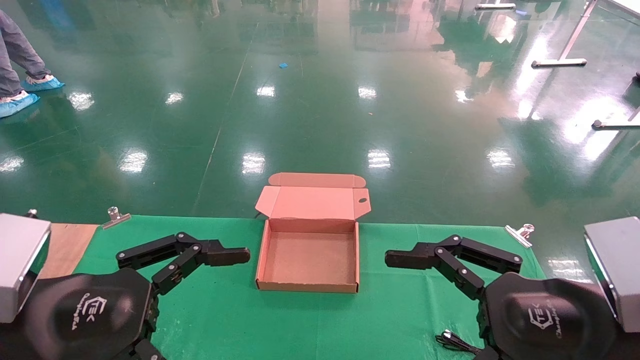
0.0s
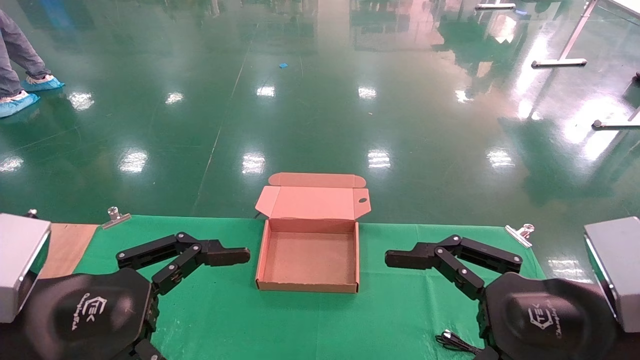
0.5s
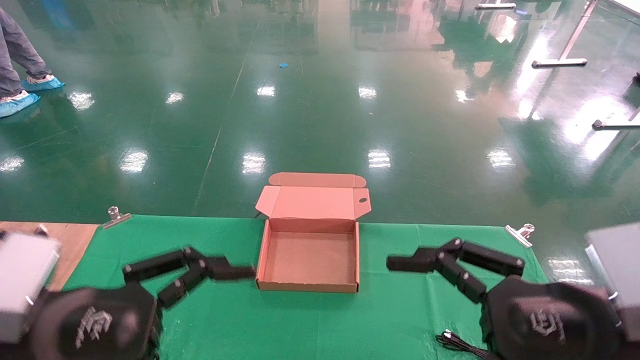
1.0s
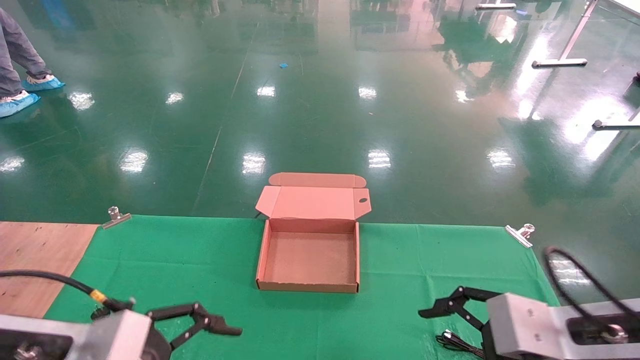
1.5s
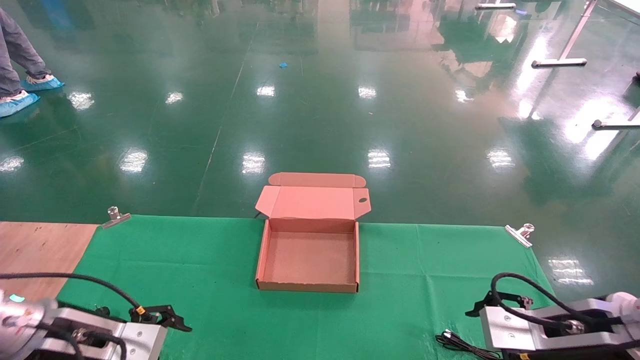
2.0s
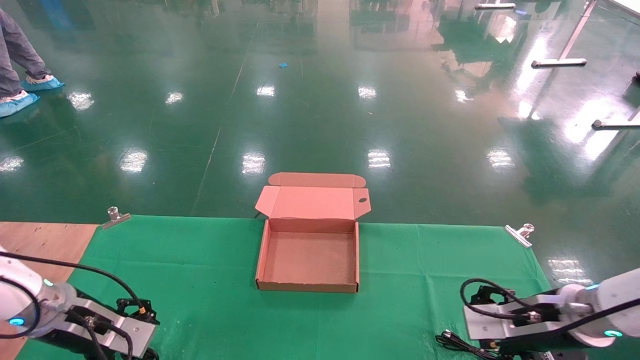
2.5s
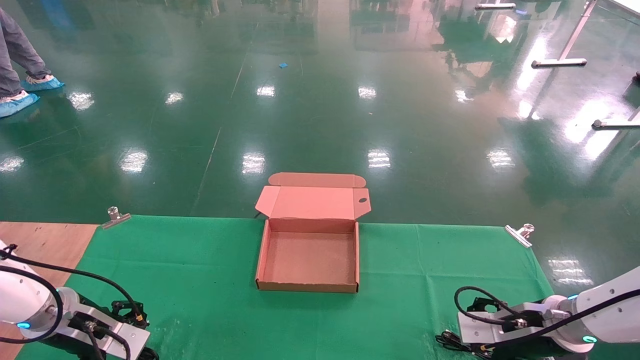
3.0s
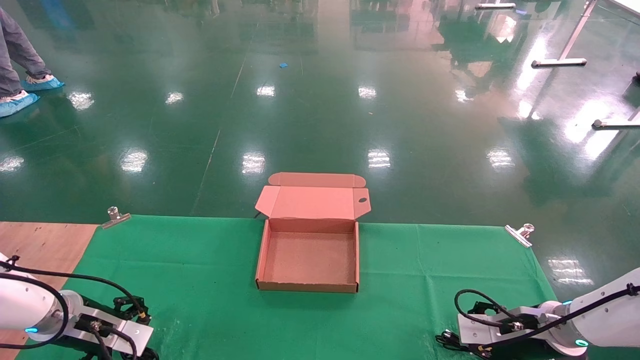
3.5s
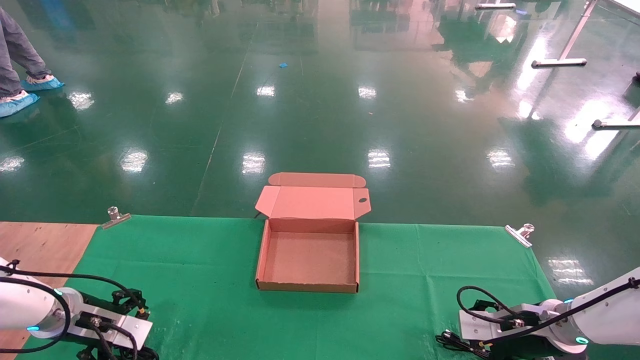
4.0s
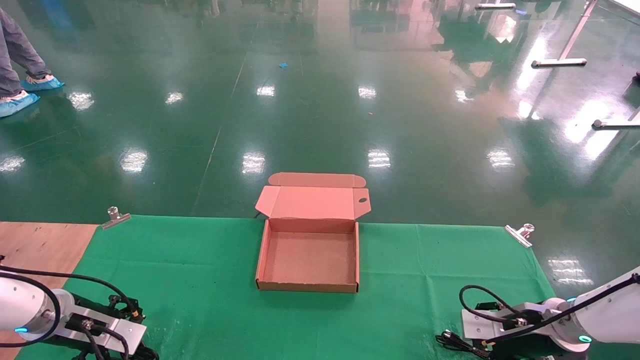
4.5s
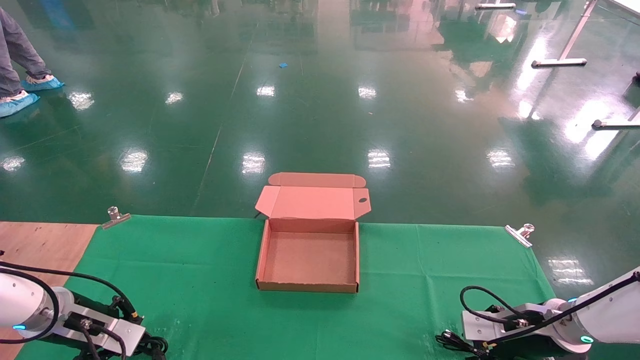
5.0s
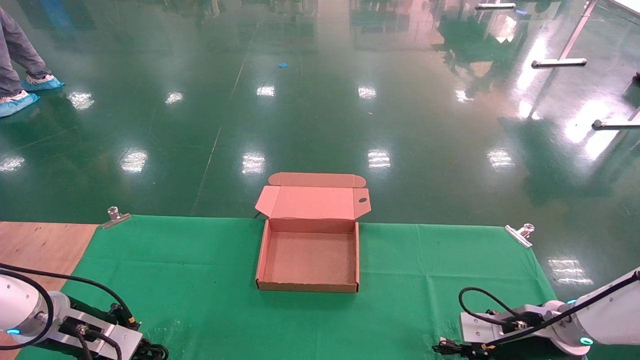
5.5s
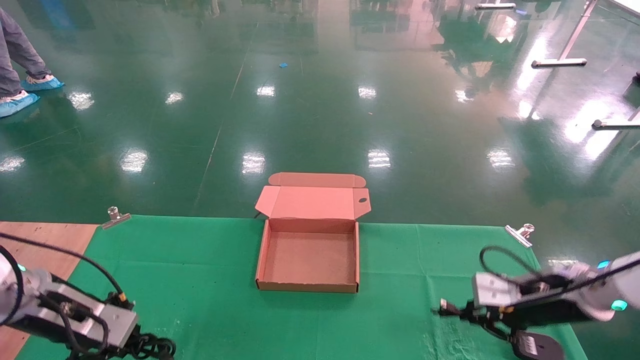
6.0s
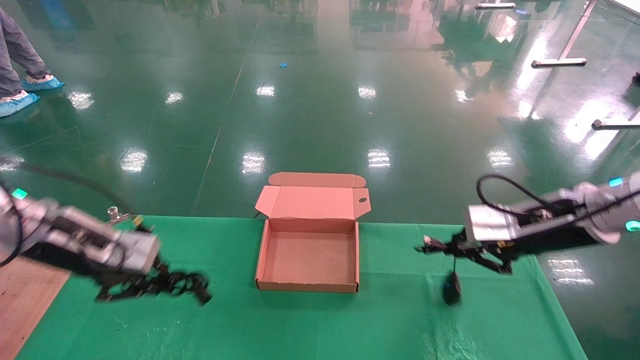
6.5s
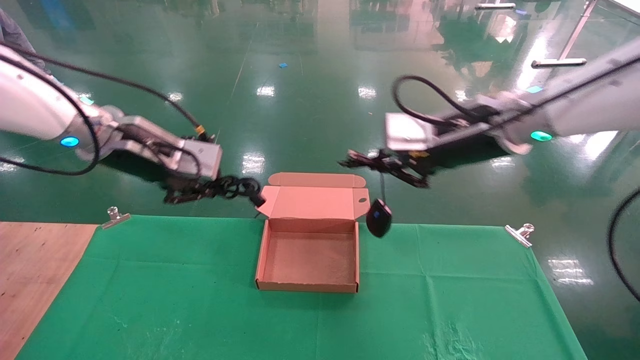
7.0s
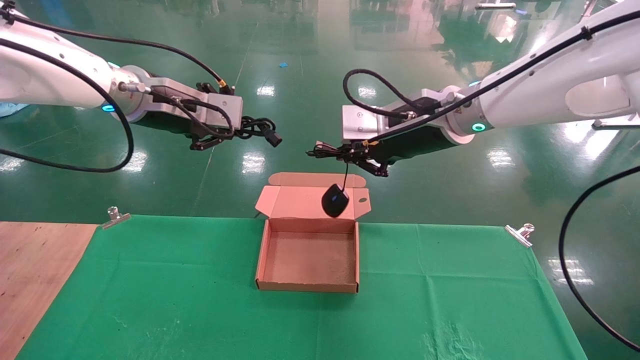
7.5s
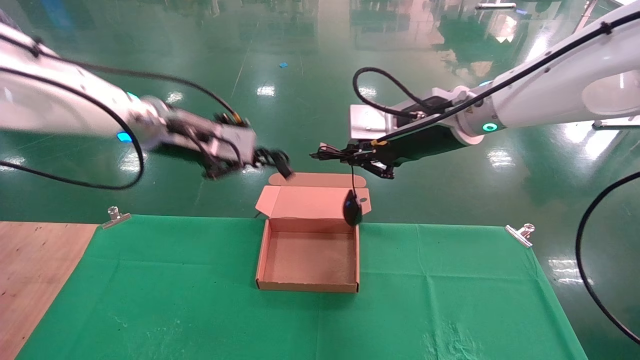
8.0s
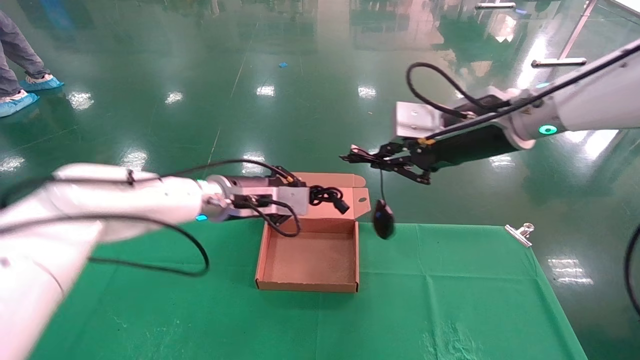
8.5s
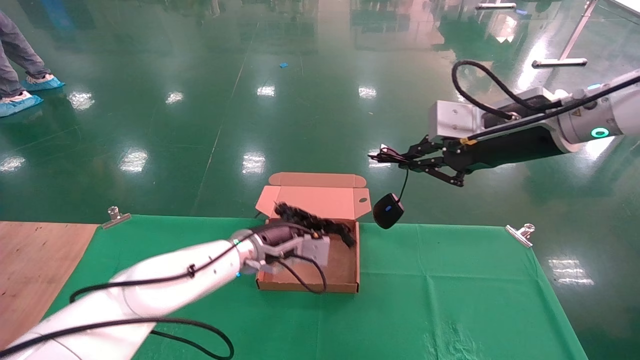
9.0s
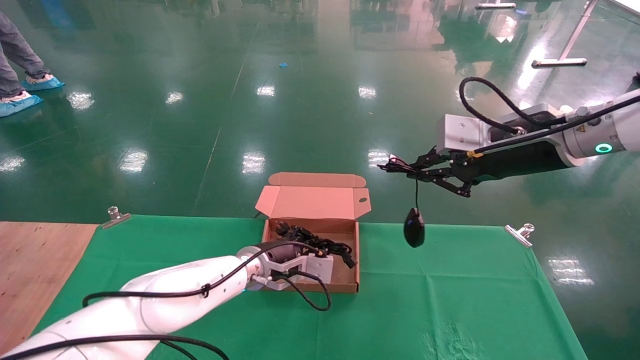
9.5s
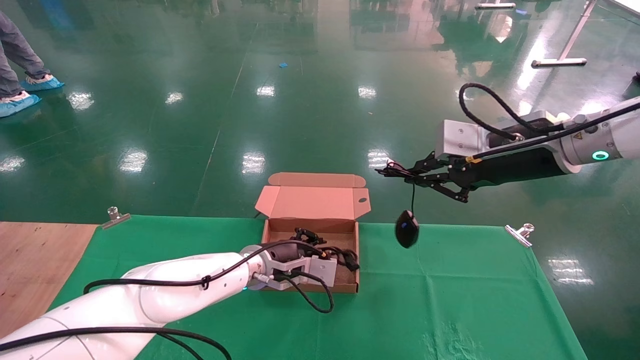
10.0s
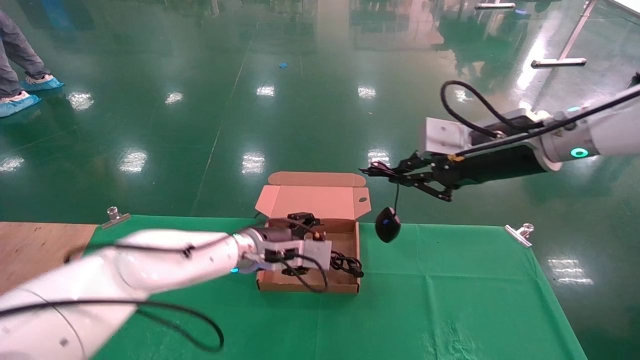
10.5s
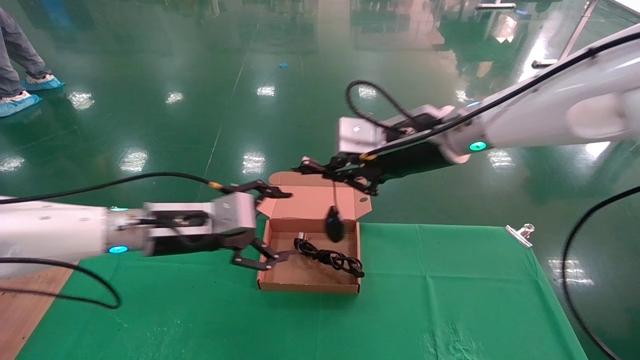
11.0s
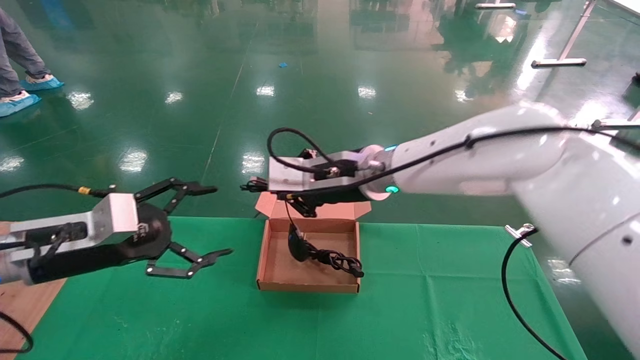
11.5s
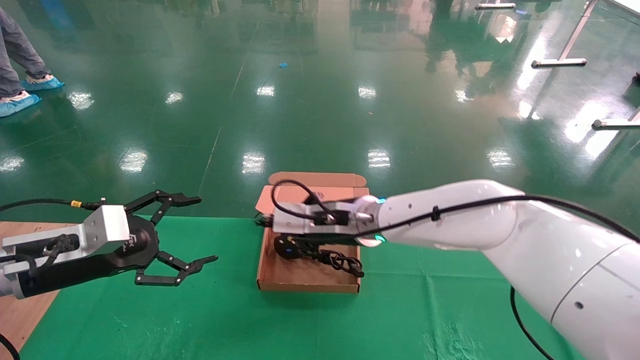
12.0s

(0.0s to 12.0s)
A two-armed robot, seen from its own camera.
Step, 2.5s - 6.5s: Grab and lift both the mouse and power cord from the accessory packaging area at the same time.
0.0s - 2.0s: The left gripper travels forward, downward and to the left by roughly 20 cm, while the right gripper heads forward and downward, covering approximately 15 cm.
2.0s - 4.0s: The right gripper heads forward and downward, covering some 15 cm. Meanwhile the left gripper goes about 15 cm forward, to the left and downward.
4.0s - 6.0s: The two grippers go about 10 cm upward. The right gripper closes its fingers, while the left gripper closes.
6.0s - 8.0s: The right gripper shifts approximately 30 cm upward and to the left, while the left gripper shifts about 25 cm upward and to the right.
8.0s - 10.0s: The left gripper is displaced downward and to the right by approximately 25 cm. The right gripper moves to the right, roughly 10 cm.
10.0s - 12.0s: The left gripper goes approximately 30 cm to the left and backward, and opens. The right gripper shifts roughly 25 cm to the left and downward.

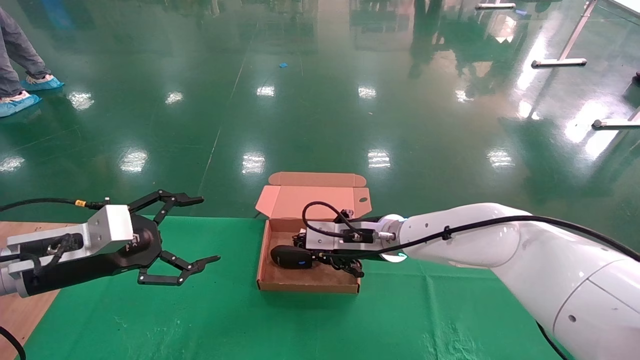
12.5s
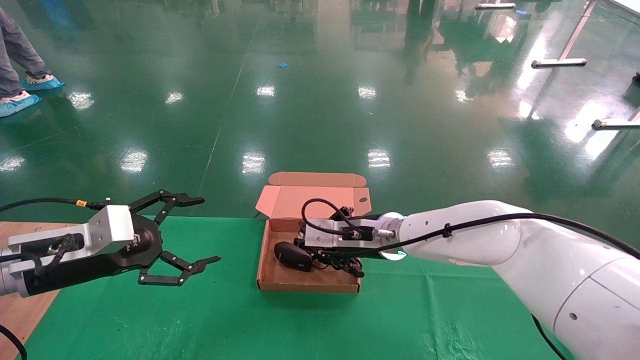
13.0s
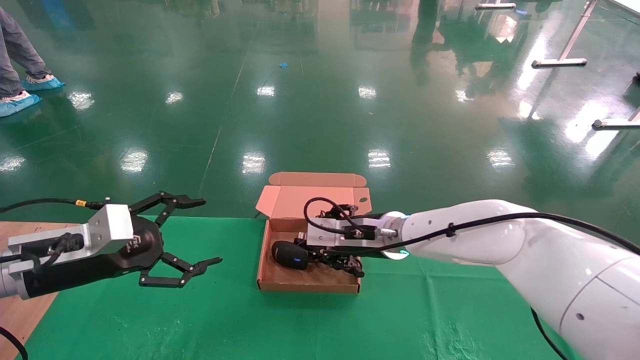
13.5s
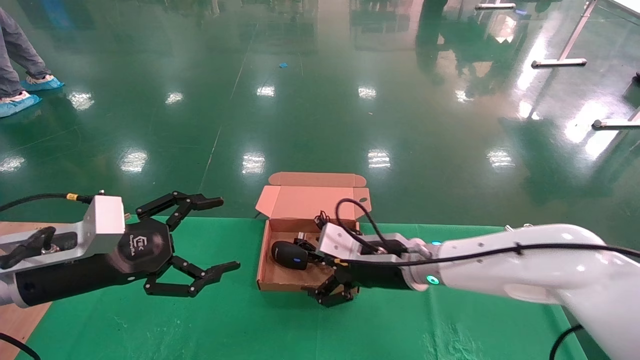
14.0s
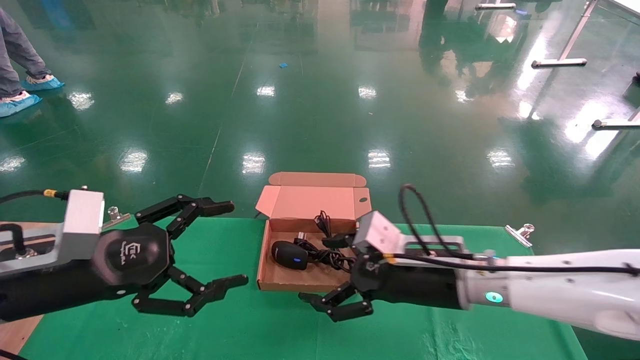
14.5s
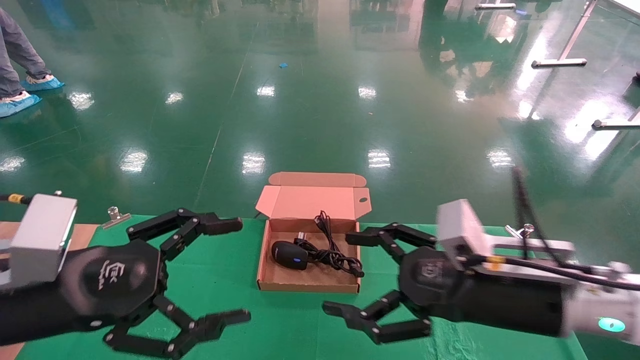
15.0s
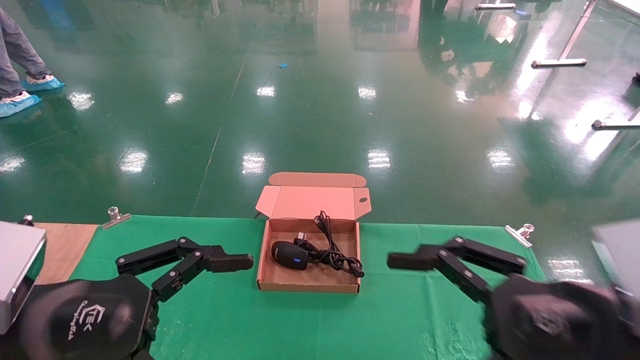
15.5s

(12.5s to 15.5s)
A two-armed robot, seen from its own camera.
12.5s - 14.0s: The right gripper shifts by approximately 5 cm, and opens.
14.0s - 15.5s: The left gripper is displaced backward by some 15 cm. The right gripper heads backward and to the right, covering some 25 cm.

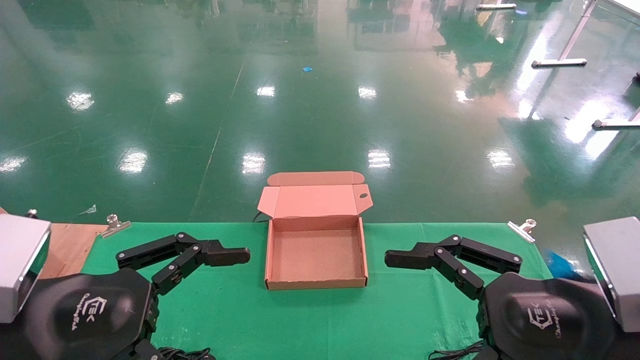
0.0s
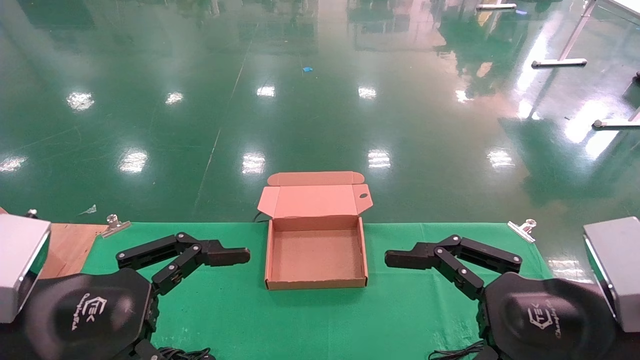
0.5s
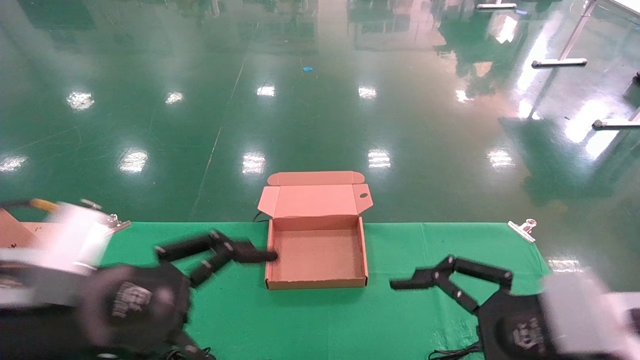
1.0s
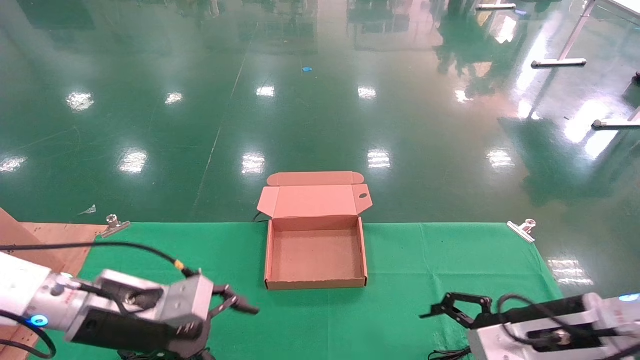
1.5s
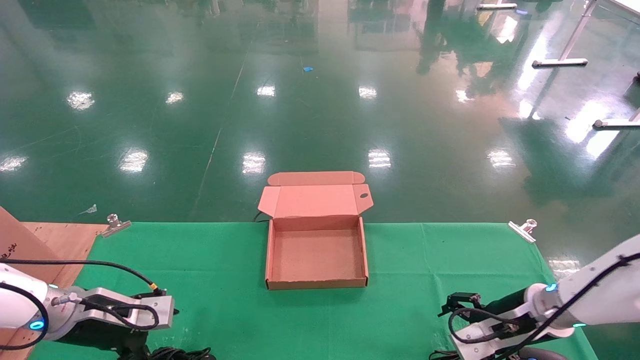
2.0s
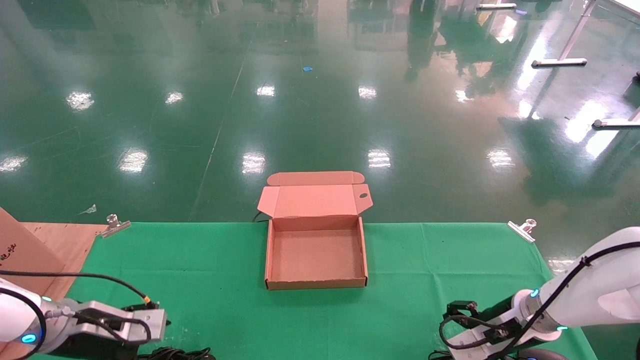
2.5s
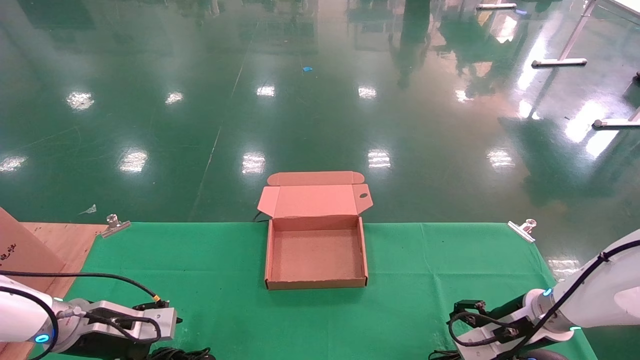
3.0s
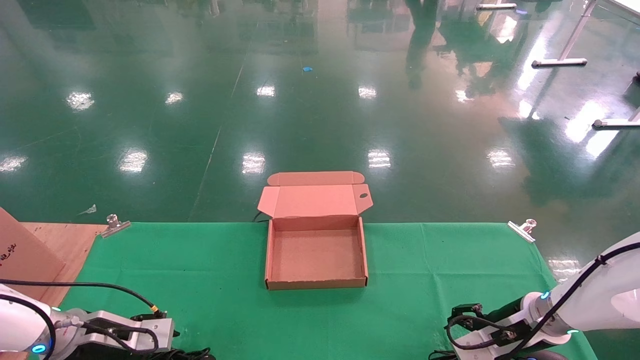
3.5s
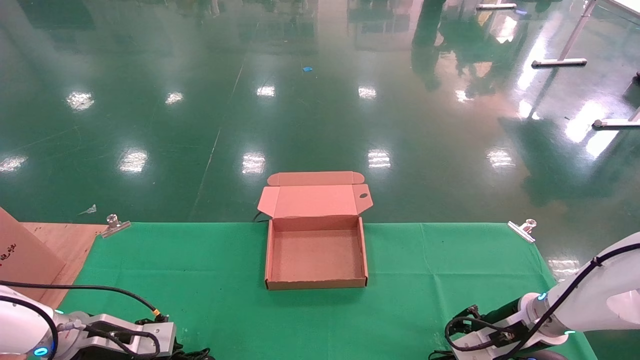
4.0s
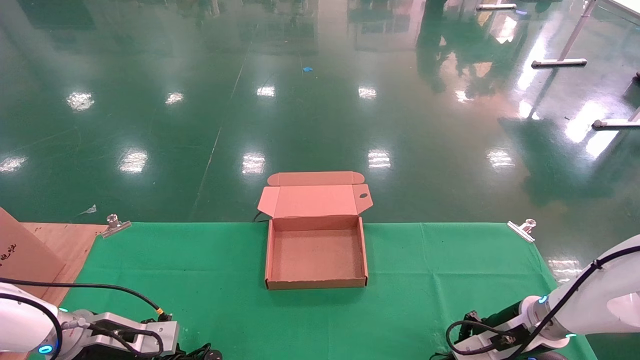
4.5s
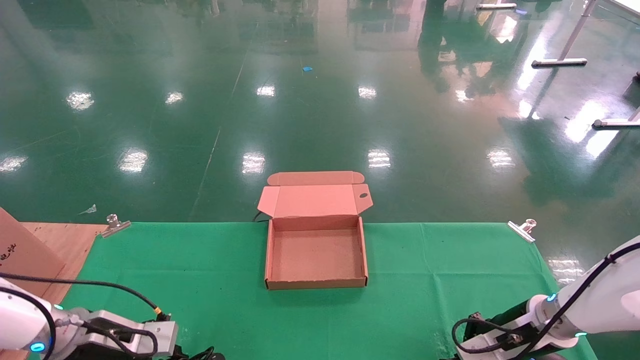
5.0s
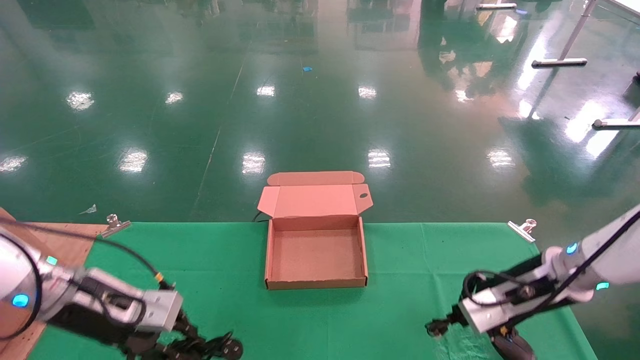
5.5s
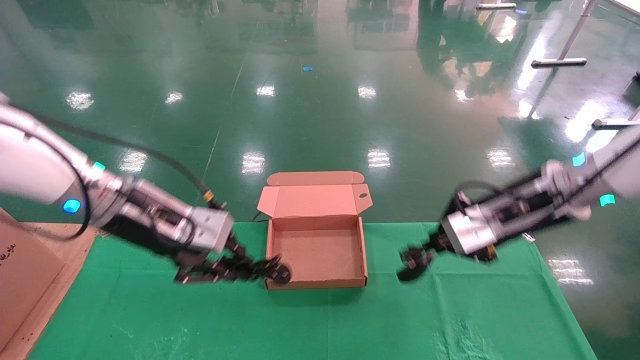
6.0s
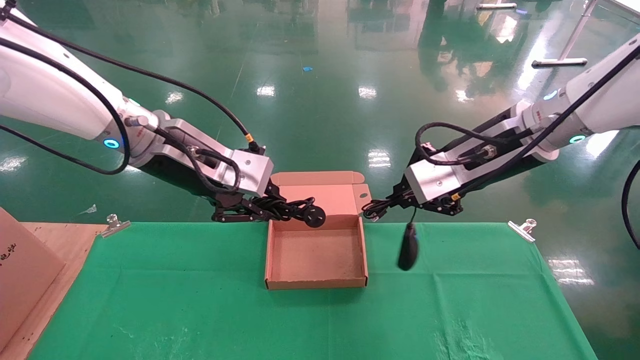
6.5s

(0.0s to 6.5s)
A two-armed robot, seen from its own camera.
Step, 2.0s - 5.5s: Grab and lift both the mouse and power cord from the accessory packaging area at the same time.
0.0s - 2.0s: The right gripper goes approximately 25 cm forward and downward, while the left gripper is displaced forward, downward and to the left by roughly 25 cm.
2.0s - 4.5s: The left gripper closes its fingers; the right gripper closes up.
4.5s - 6.5s: The left gripper heads upward and to the right, covering approximately 35 cm. Meanwhile the right gripper moves upward, approximately 30 cm.
